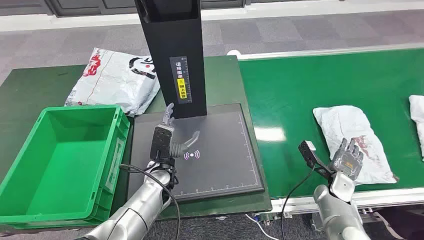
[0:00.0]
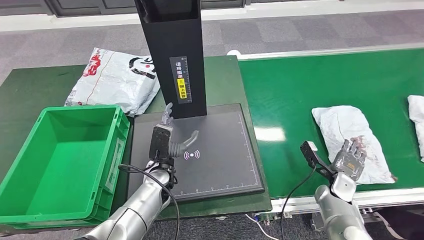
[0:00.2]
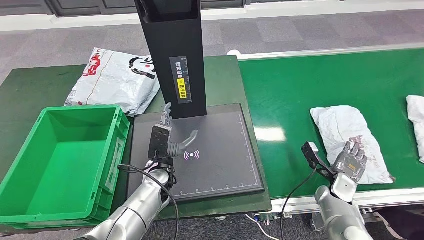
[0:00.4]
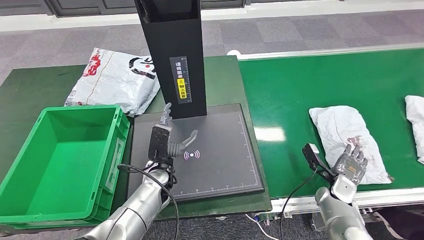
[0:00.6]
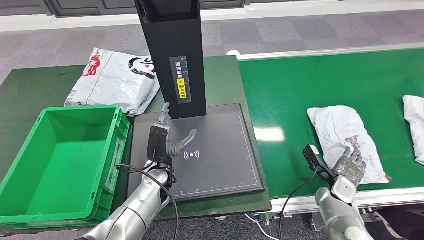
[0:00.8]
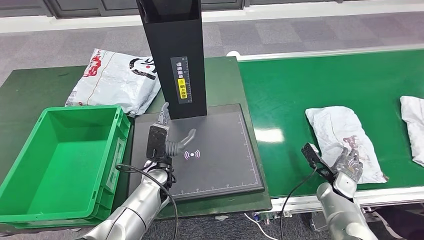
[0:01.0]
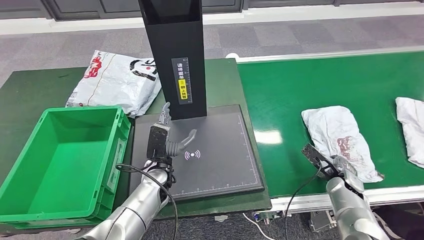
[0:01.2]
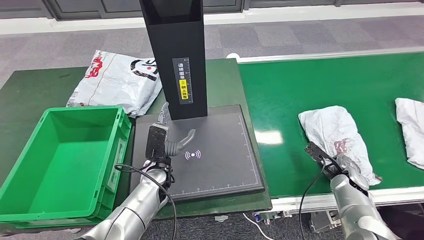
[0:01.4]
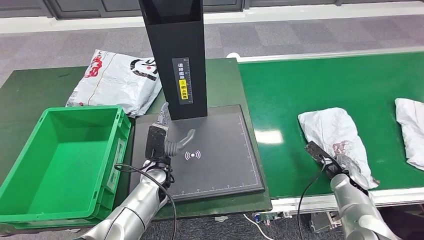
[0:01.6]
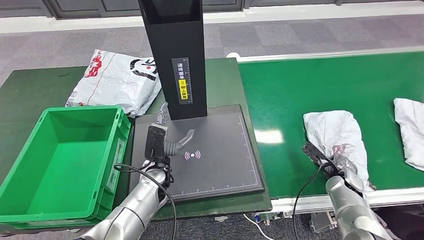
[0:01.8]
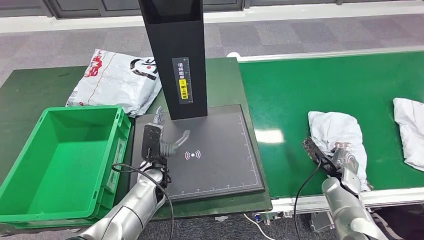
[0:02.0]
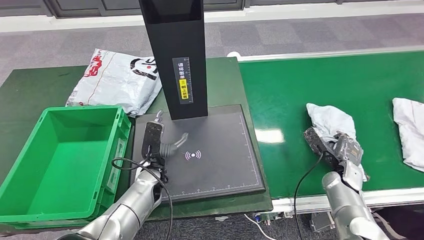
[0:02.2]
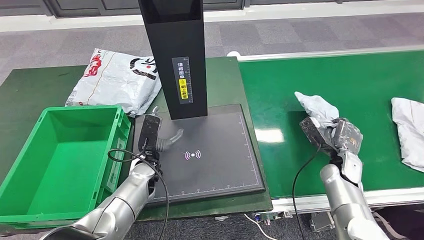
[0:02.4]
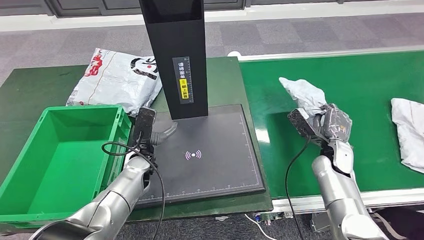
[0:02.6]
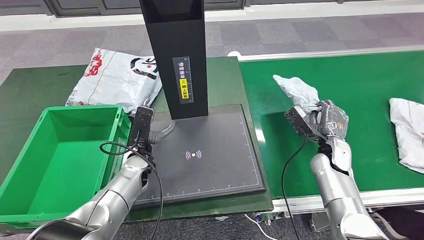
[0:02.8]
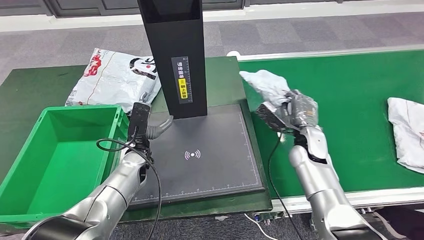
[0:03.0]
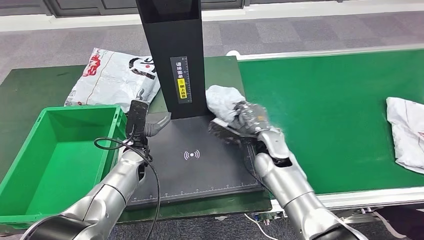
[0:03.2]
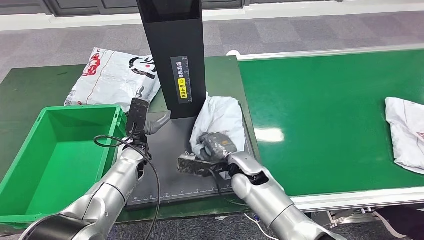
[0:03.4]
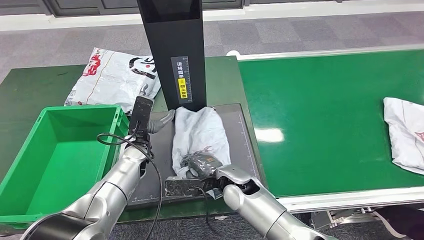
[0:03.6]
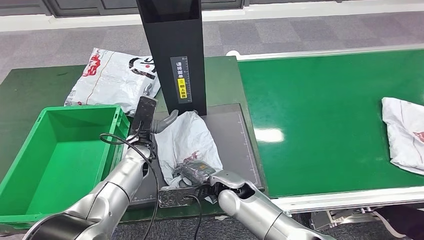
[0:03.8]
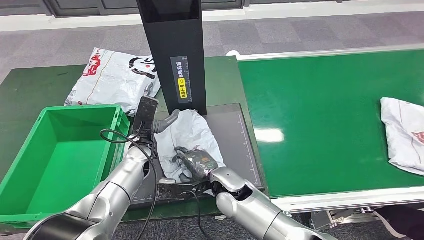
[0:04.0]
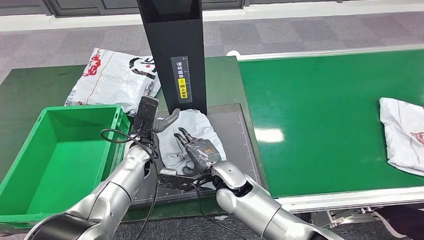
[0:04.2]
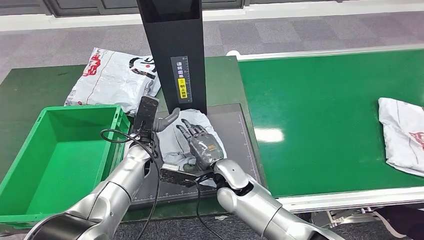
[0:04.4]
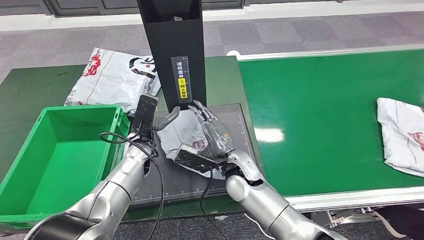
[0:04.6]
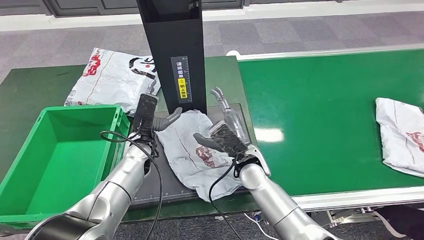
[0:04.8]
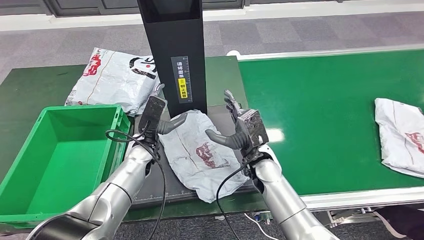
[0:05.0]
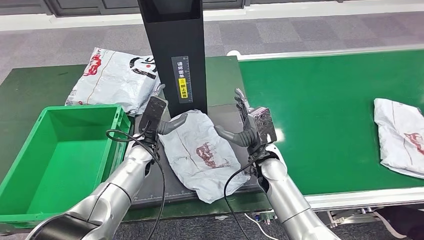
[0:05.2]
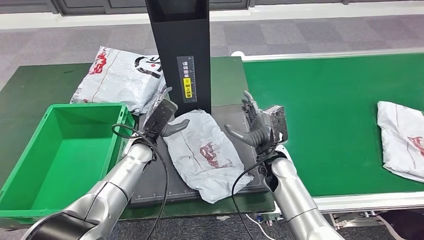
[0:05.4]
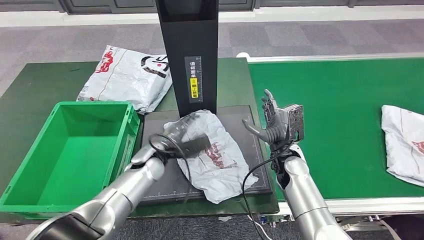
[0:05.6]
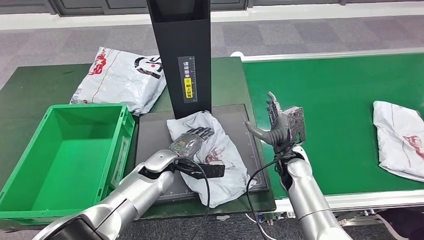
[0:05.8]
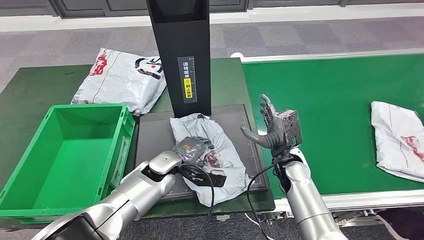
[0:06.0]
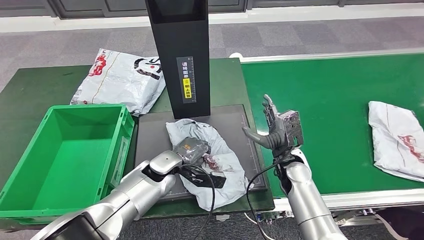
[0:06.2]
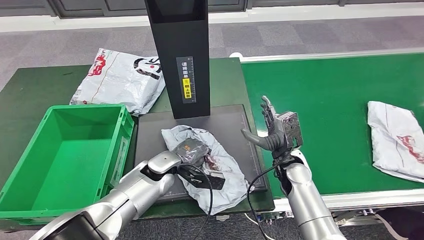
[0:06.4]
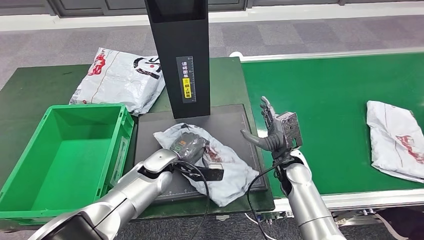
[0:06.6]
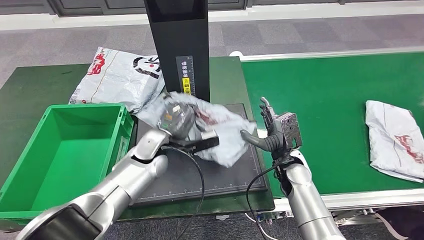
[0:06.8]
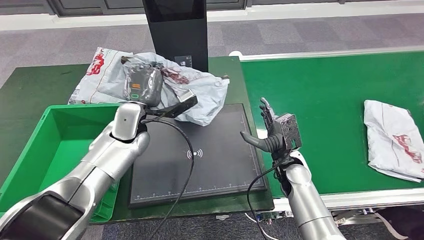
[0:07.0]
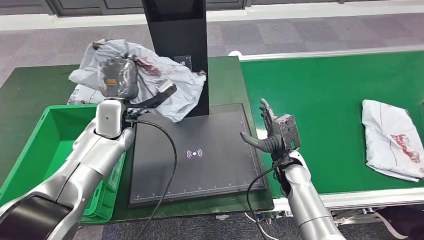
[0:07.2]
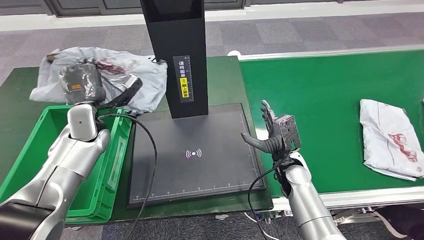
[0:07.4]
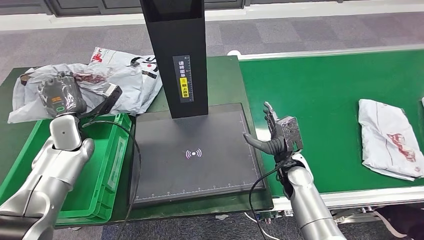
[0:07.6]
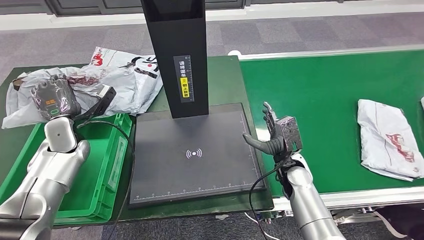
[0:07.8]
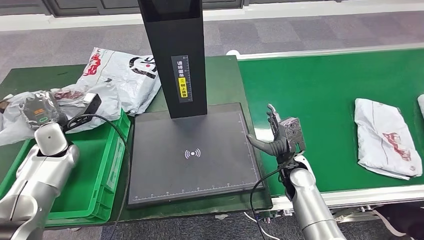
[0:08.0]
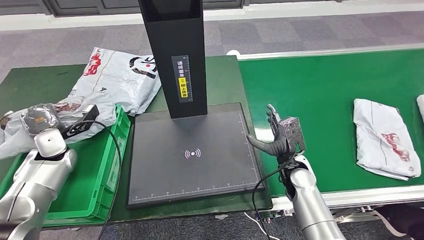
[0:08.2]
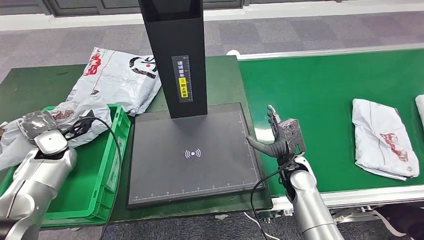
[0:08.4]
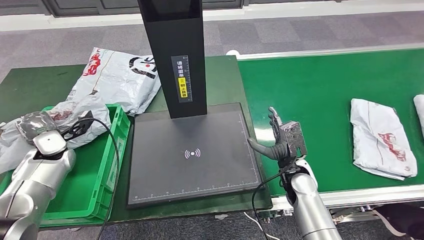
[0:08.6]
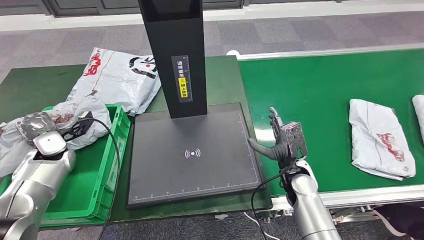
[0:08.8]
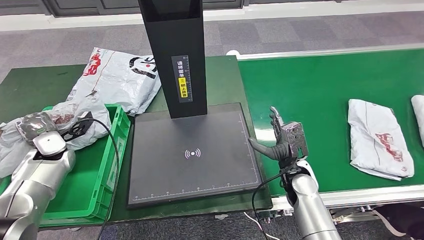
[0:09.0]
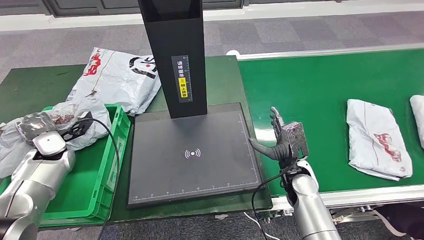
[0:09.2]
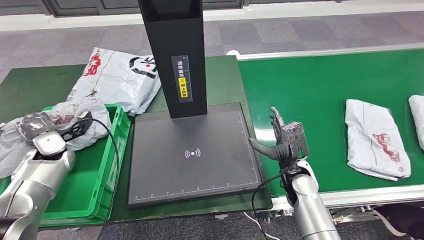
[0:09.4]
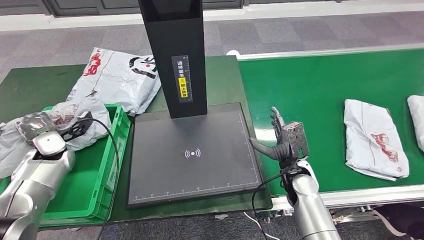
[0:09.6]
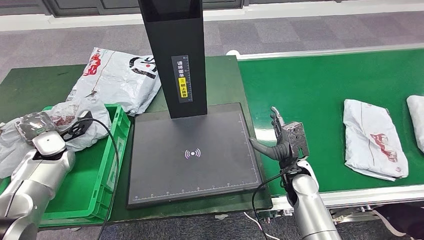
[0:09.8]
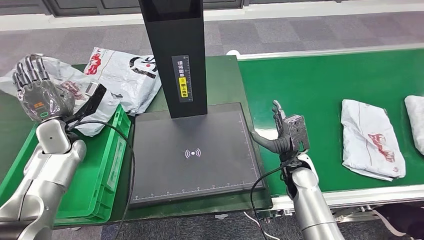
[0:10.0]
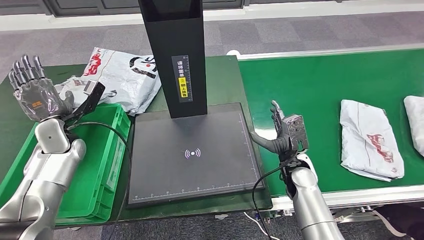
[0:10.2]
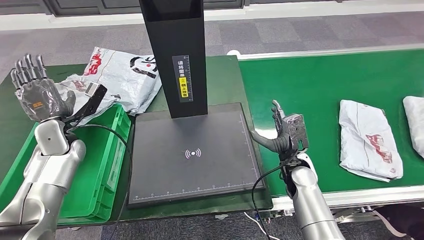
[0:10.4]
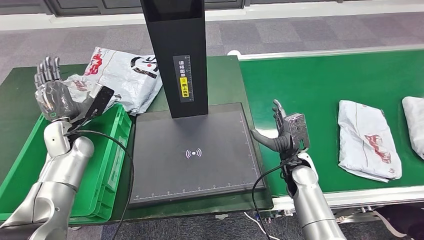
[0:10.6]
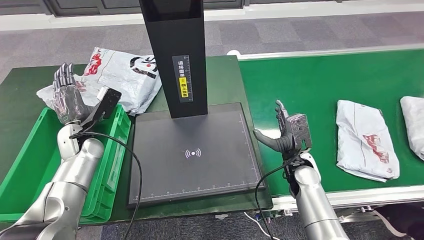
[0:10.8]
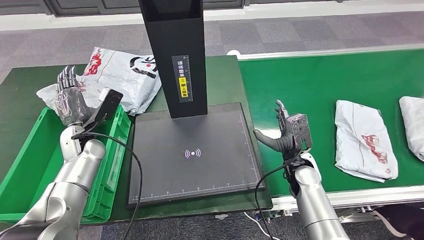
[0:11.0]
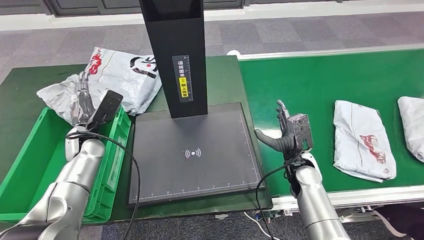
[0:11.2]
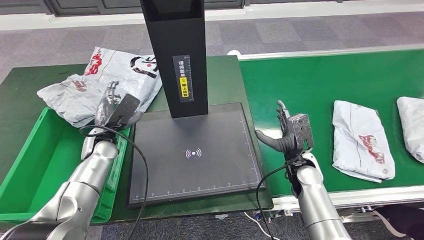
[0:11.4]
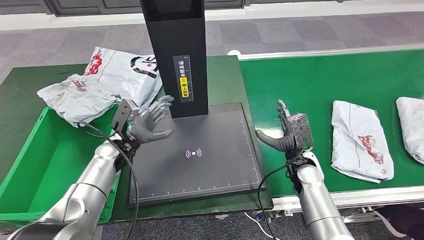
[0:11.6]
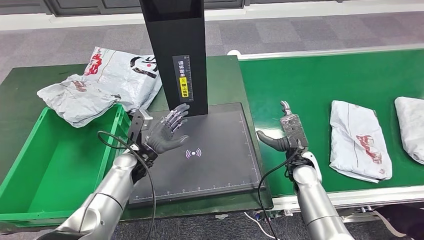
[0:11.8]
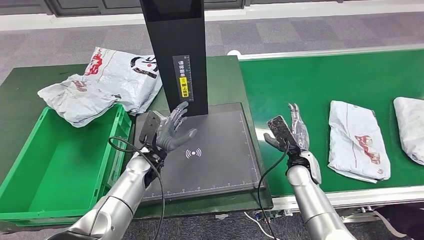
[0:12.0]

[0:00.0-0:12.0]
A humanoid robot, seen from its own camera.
Step, 0:00.0 to 0:03.0: Take the parcel off the conveyor belt.
Step, 0:03.2 to 0:05.0: Place the parcel onto the inbound machine.
Step, 0:05.2 to 0:07.6: Pick up the parcel from the inbound machine.
Step, 0:07.8 to 0:10.8: Put the parcel inside the courier box.
0:09.0 to 0:10.4: The left hand moves roughly 5 cm.

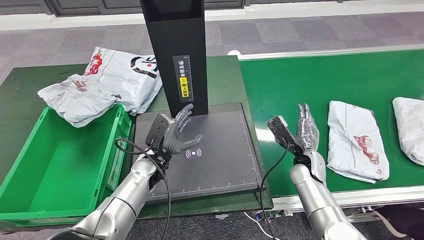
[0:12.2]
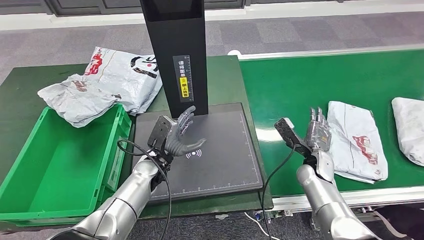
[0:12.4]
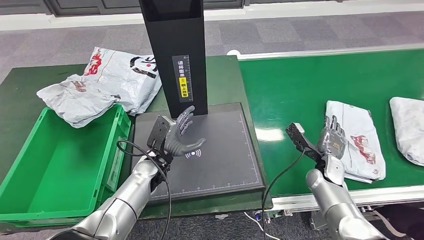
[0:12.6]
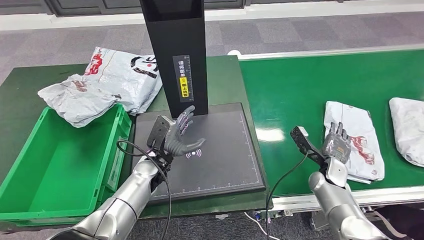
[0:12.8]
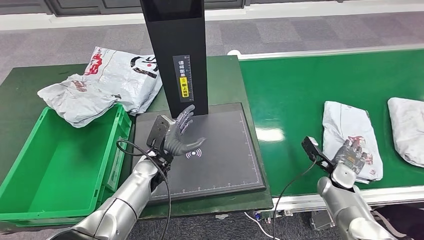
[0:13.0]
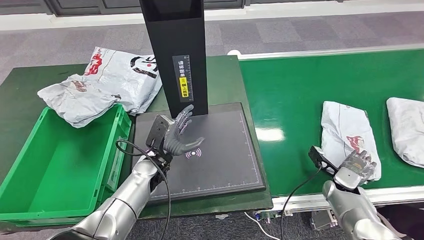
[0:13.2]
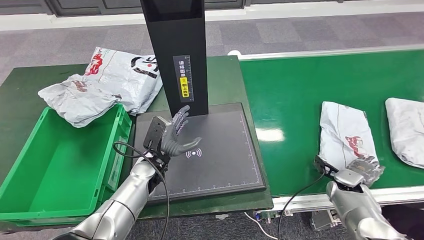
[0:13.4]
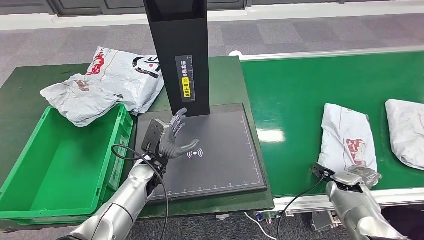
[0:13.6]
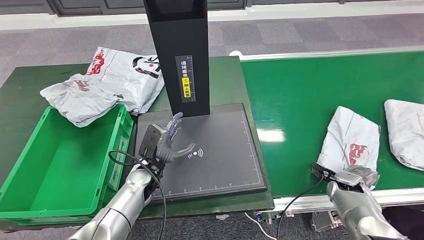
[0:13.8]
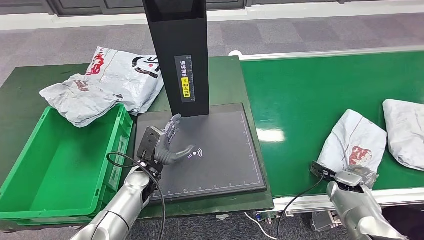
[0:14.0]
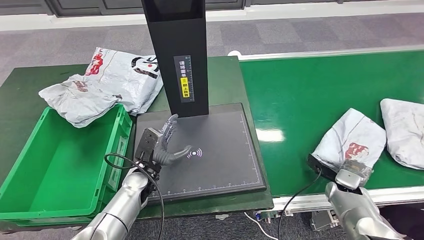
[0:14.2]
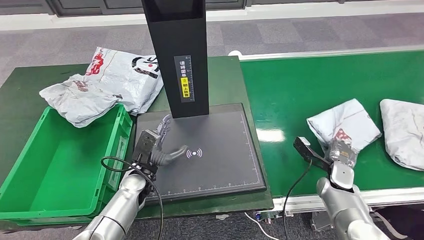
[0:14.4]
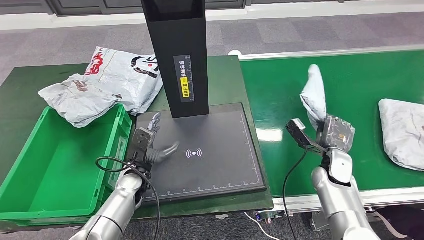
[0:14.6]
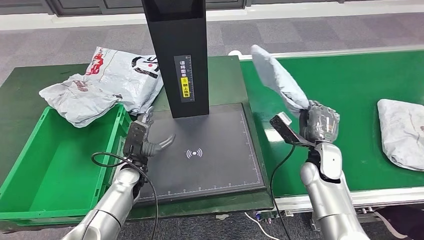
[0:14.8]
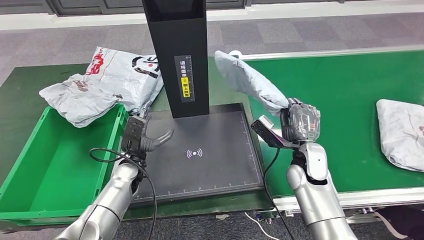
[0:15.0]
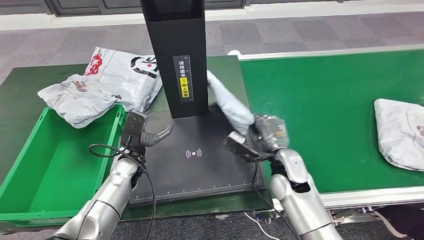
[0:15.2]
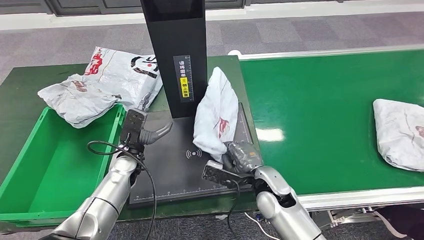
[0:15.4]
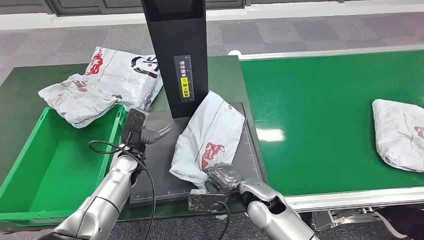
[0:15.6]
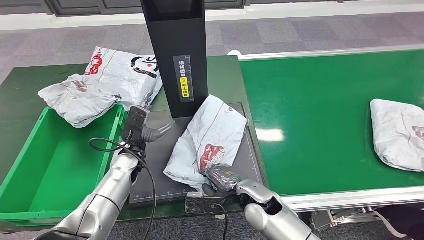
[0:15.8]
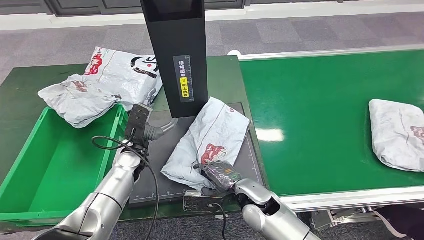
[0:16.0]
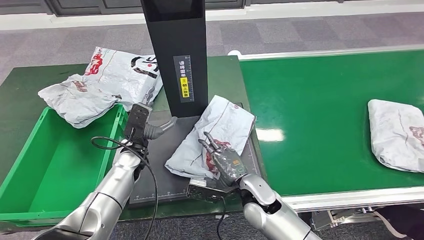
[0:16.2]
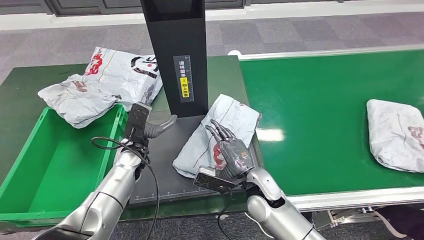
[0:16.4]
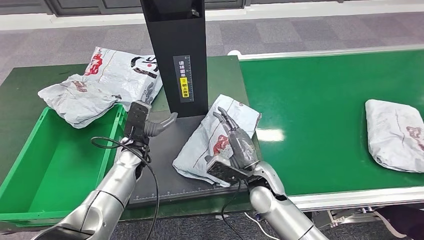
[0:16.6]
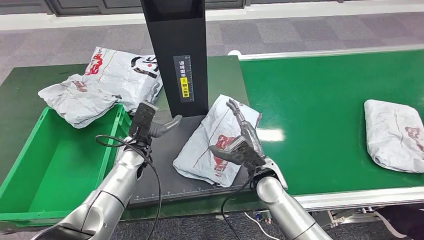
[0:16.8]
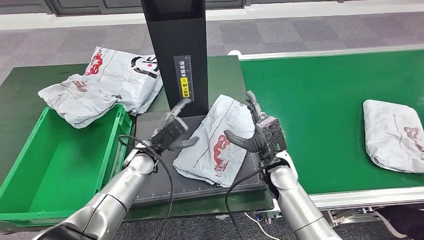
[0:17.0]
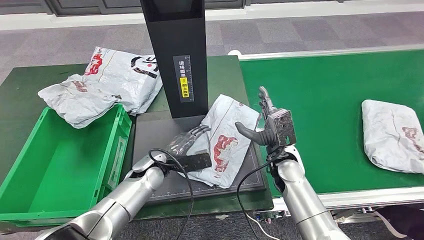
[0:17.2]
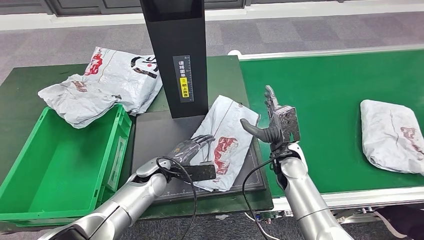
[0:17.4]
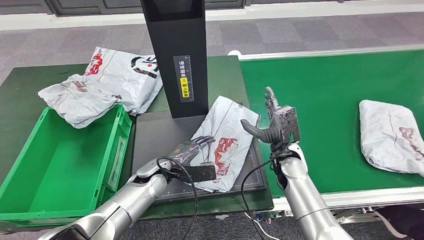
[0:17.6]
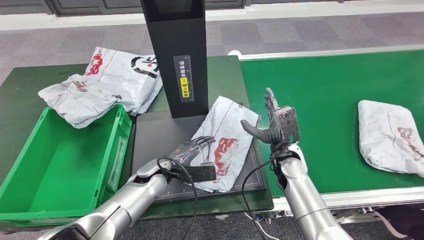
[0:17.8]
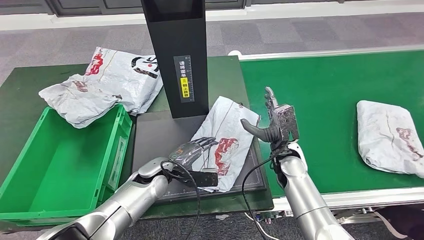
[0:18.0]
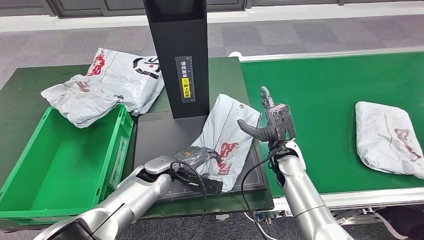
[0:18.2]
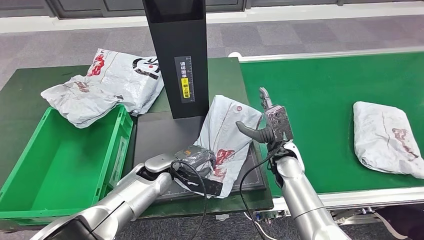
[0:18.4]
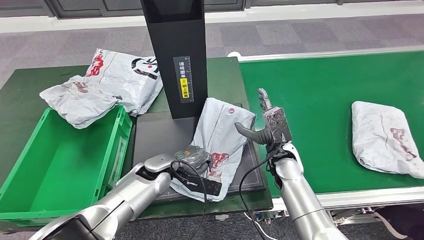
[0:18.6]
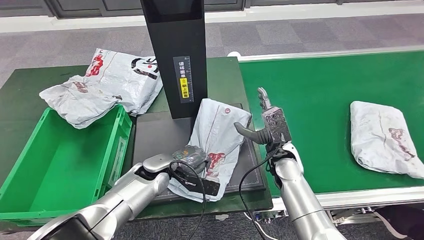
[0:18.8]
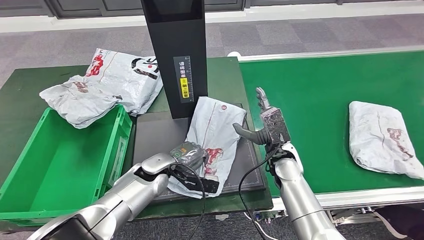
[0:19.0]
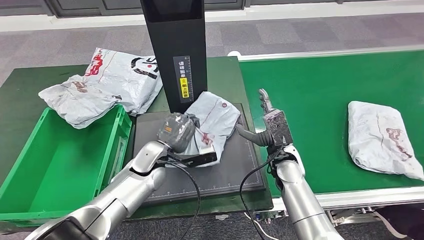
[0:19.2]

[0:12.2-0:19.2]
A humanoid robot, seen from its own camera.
Step, 0:12.2 to 0:15.4: Pick up the parcel from the conveyor belt.
Step, 0:15.6 to 0:18.2: Place the parcel onto the inbound machine.
